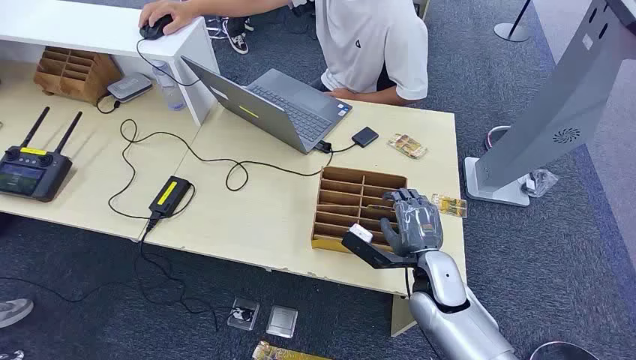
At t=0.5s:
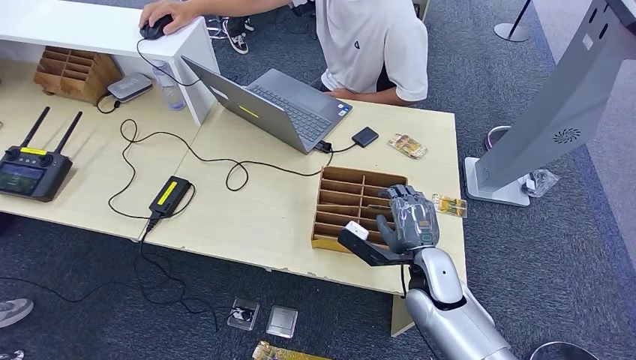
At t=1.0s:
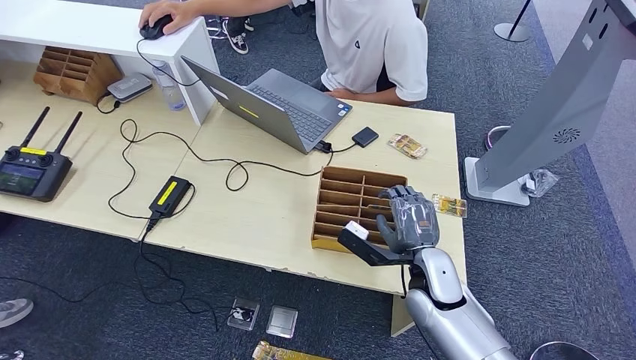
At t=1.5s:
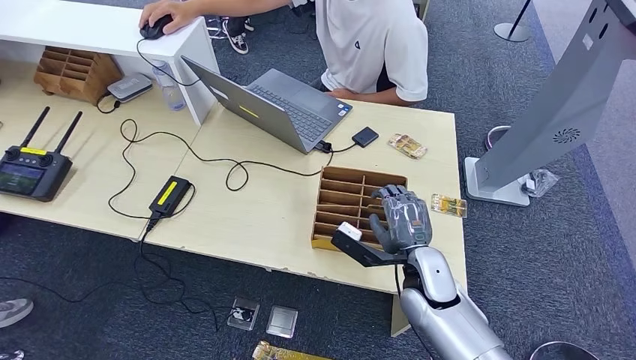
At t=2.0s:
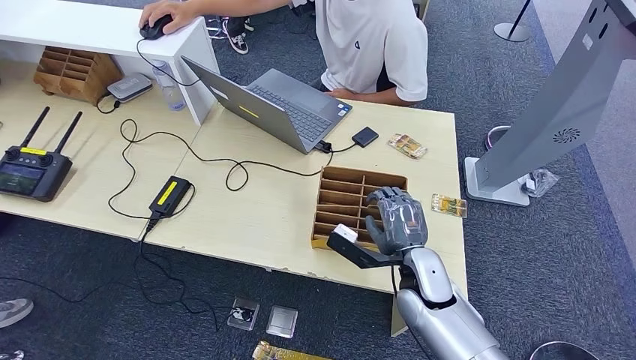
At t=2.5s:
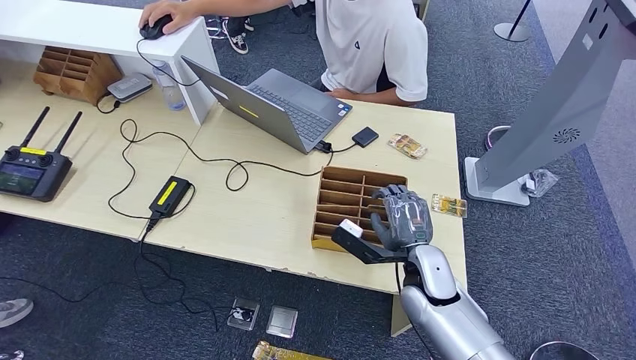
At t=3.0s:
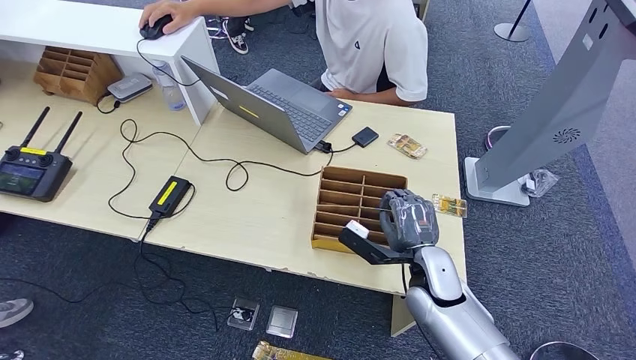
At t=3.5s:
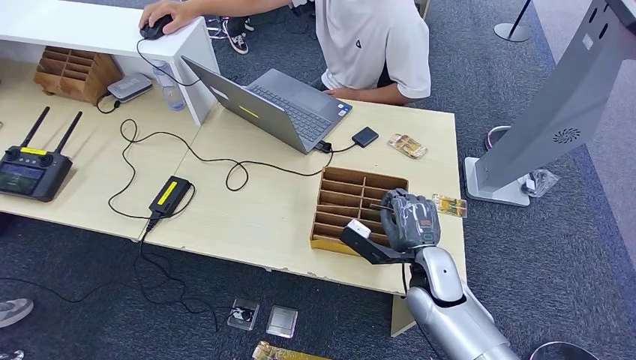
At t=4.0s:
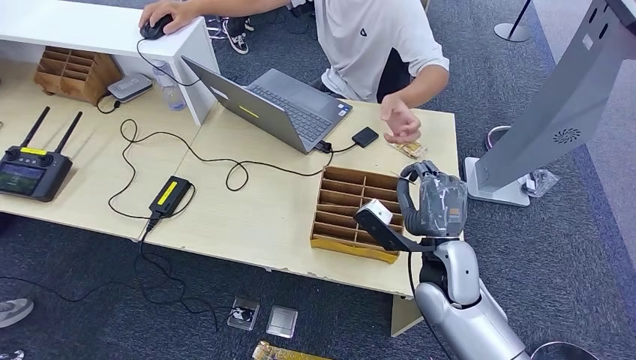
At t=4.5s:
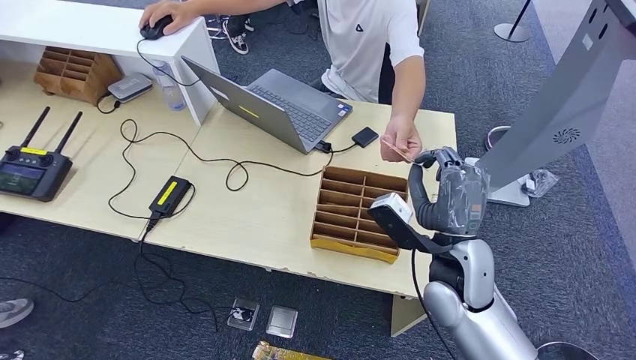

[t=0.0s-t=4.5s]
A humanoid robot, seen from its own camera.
Step, t=0.0s to t=3.5s: Pick up the room card from the card holder.
Step, t=4.0s to t=4.5s: Hand the room card to the target.
t=2.0s to t=4.5s: The right hand is displaced upward by some 10 cm.

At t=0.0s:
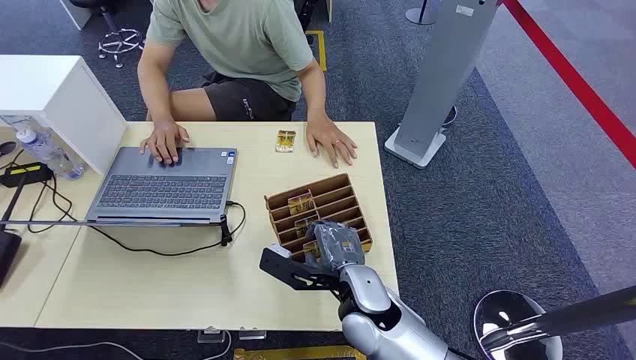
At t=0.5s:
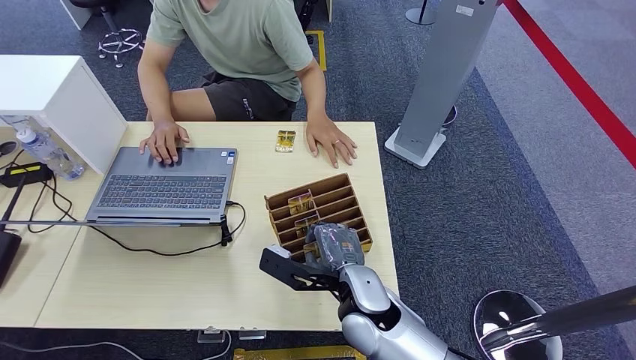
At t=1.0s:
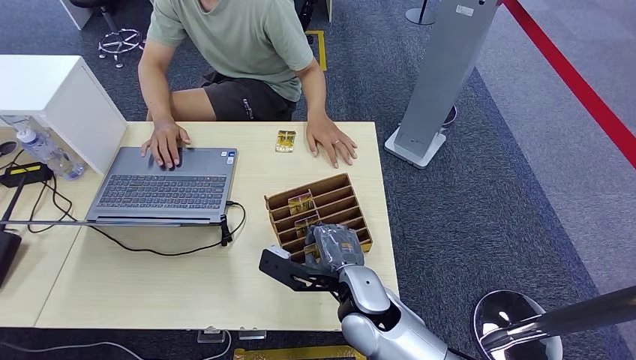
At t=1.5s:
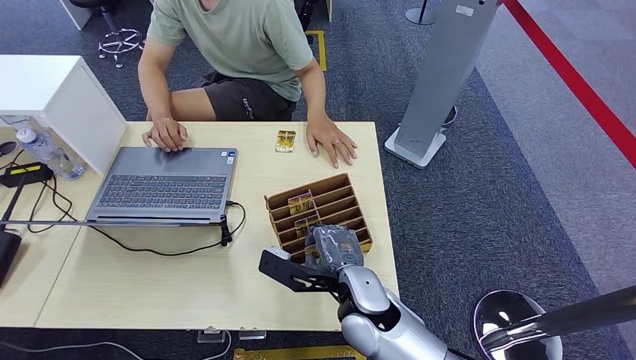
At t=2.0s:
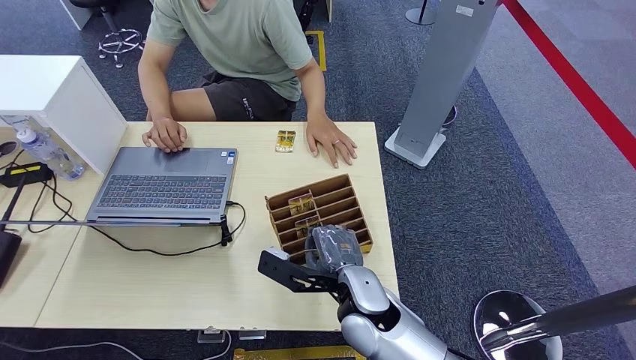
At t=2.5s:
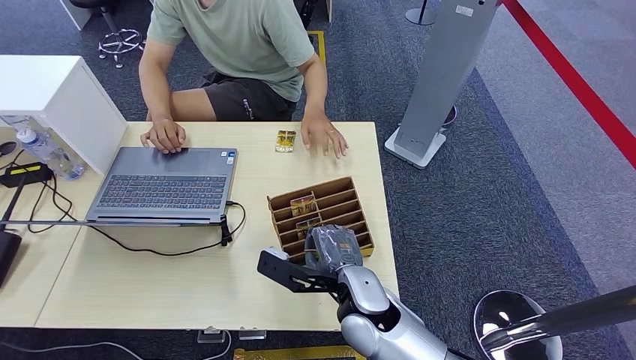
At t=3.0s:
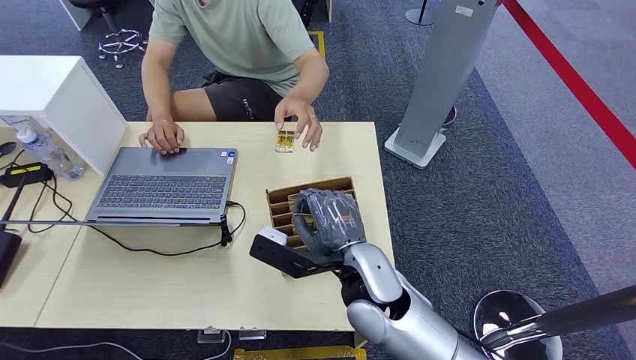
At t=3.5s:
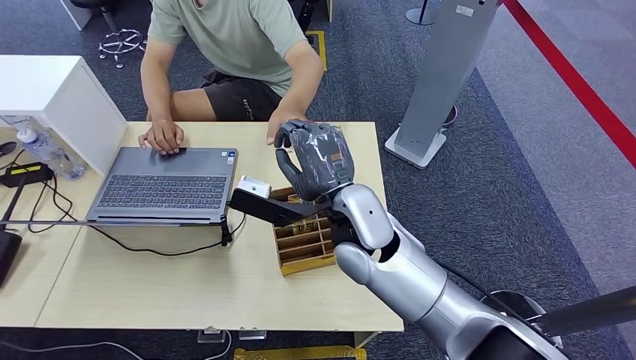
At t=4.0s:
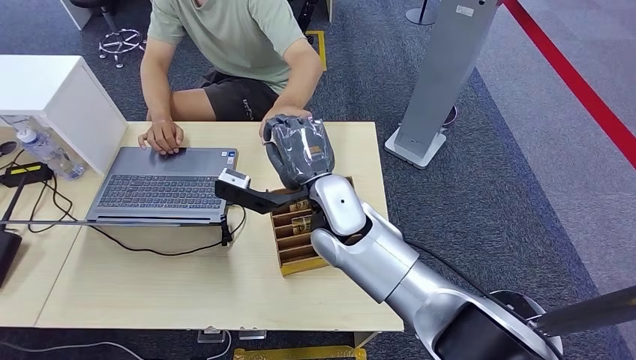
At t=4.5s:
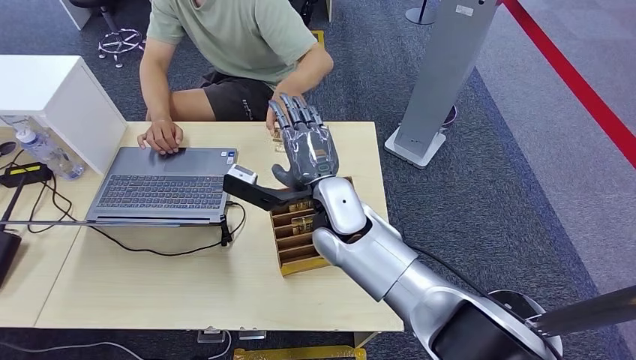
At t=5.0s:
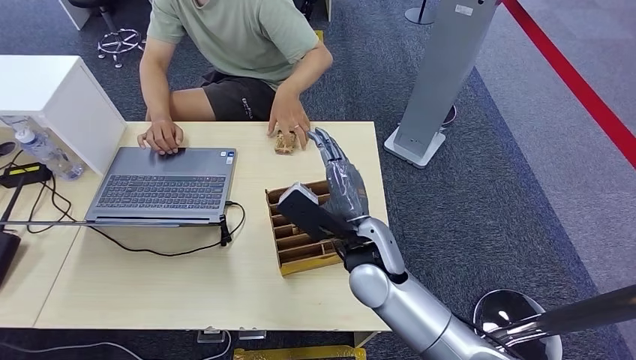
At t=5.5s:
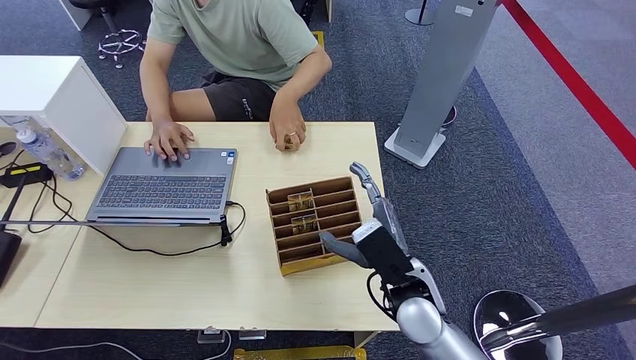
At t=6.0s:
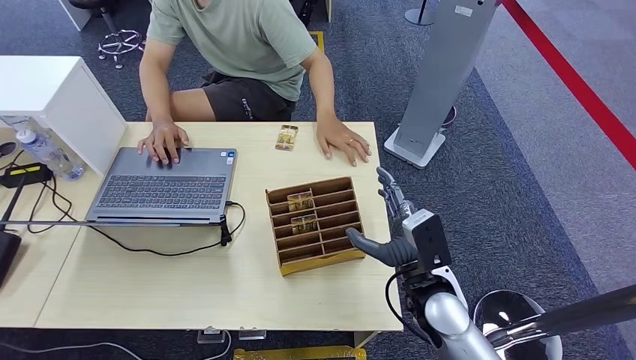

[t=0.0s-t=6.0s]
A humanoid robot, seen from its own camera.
Step, t=0.0s to t=3.0s: Pick up the room card from the card holder.
Step, t=4.5s to t=6.0s: Hand the room card to the target.
t=2.0s to t=4.0s: The right hand goes some 15 cm upward and forward.
t=4.0s to t=6.0s: The right hand is displaced to the right, downward and backward by roughly 20 cm.
